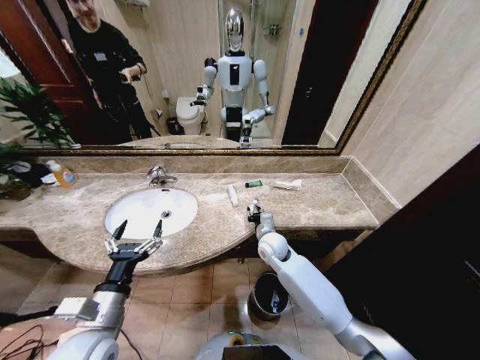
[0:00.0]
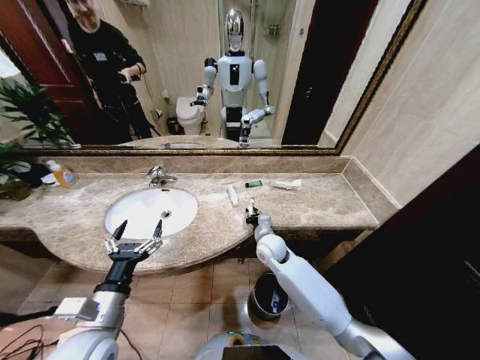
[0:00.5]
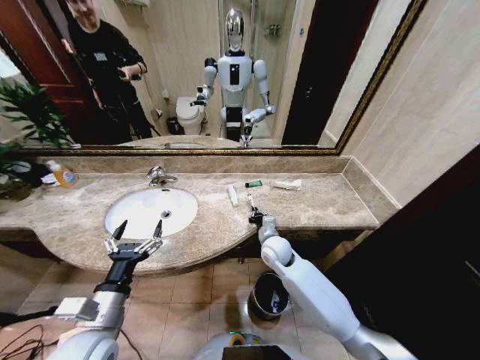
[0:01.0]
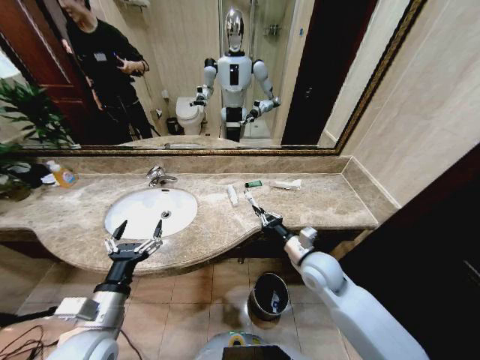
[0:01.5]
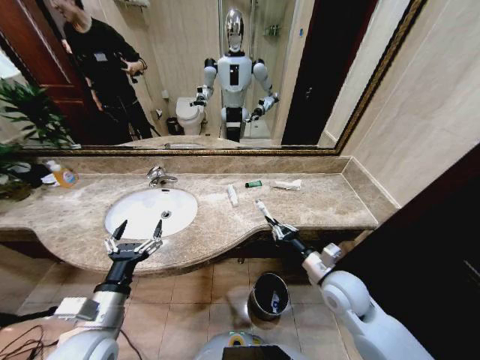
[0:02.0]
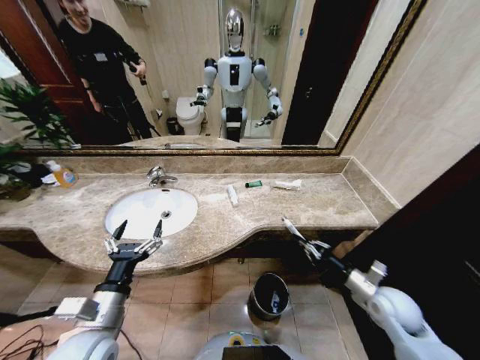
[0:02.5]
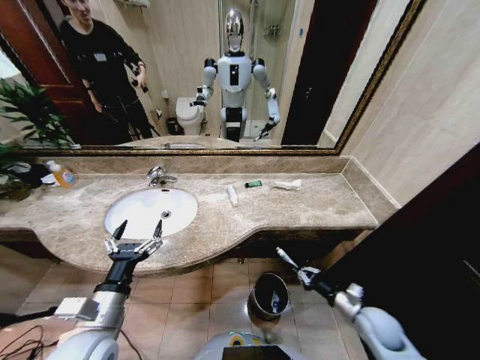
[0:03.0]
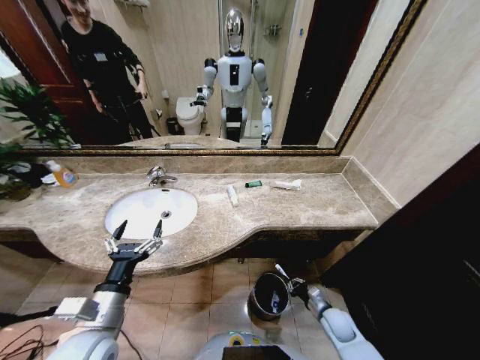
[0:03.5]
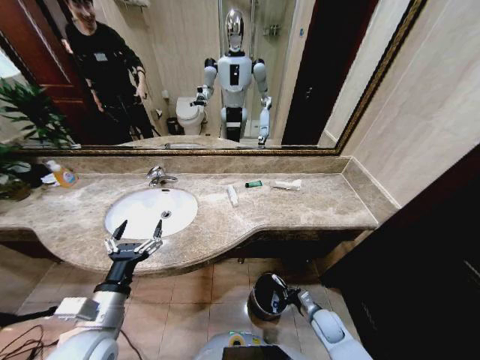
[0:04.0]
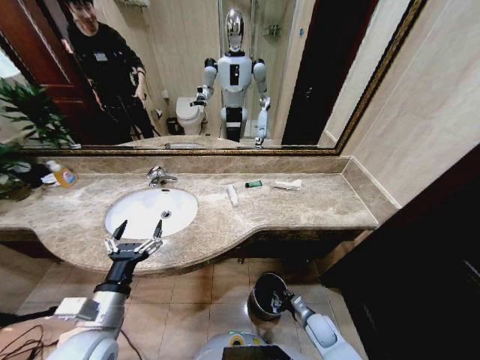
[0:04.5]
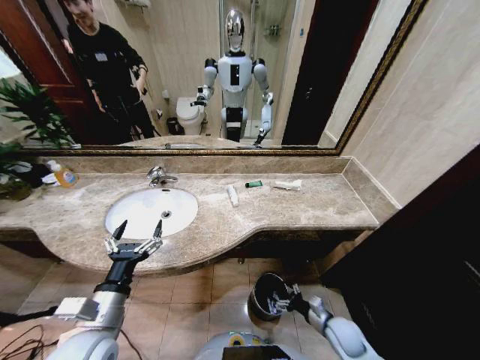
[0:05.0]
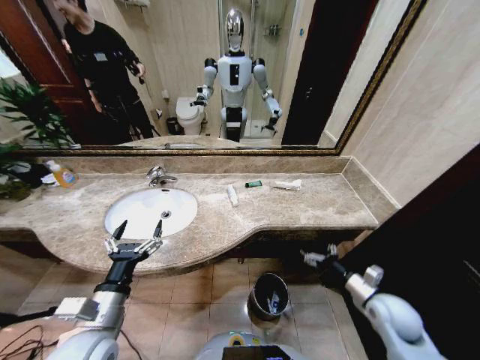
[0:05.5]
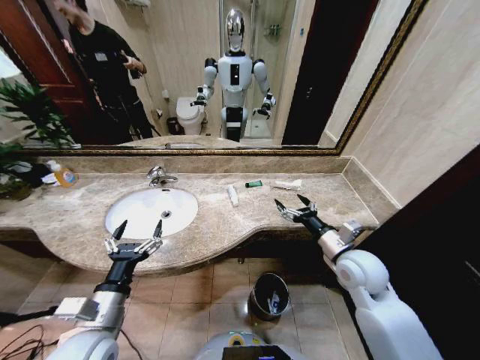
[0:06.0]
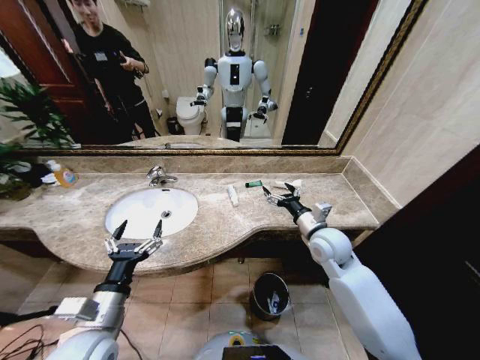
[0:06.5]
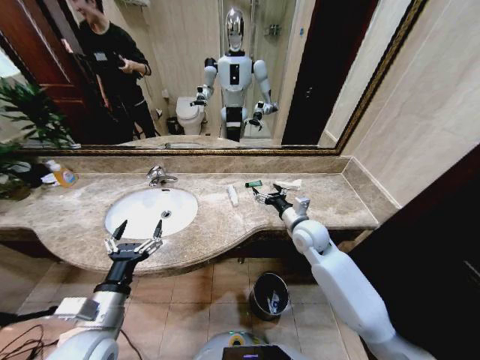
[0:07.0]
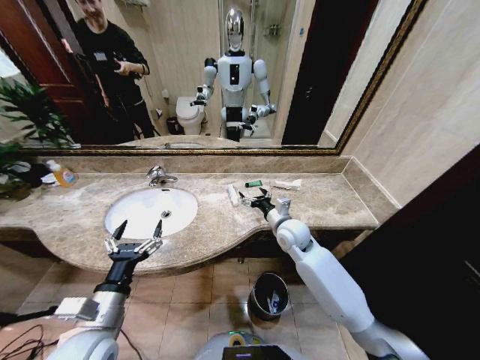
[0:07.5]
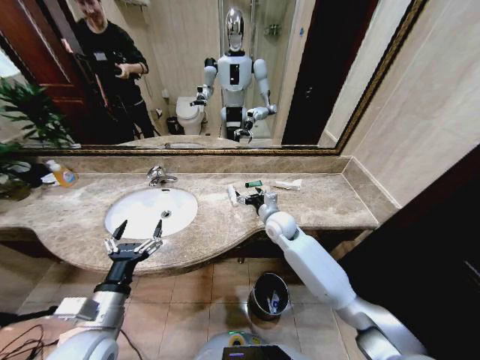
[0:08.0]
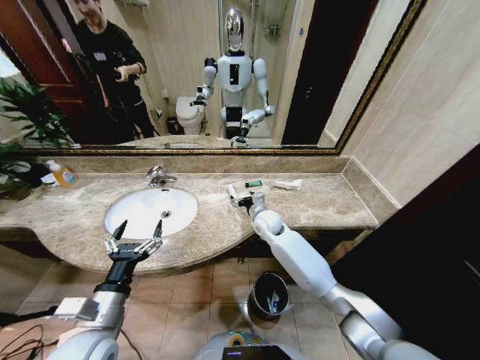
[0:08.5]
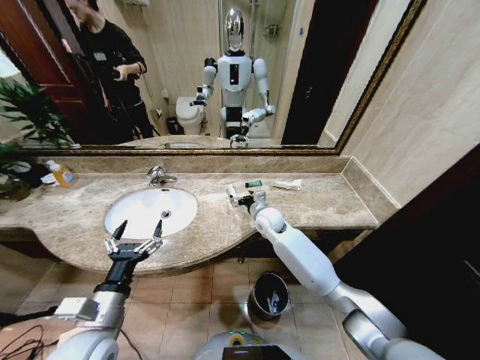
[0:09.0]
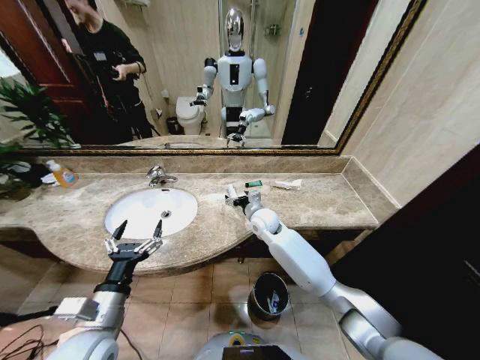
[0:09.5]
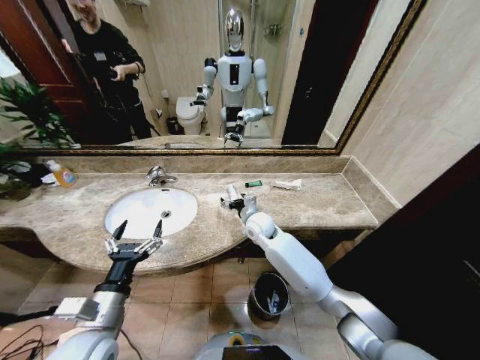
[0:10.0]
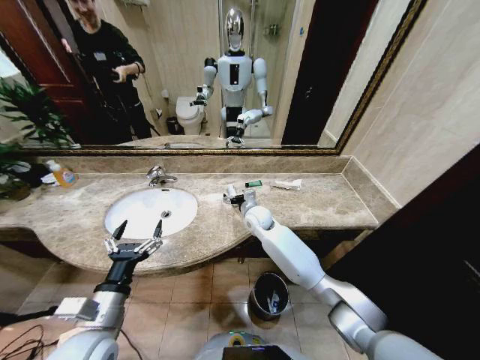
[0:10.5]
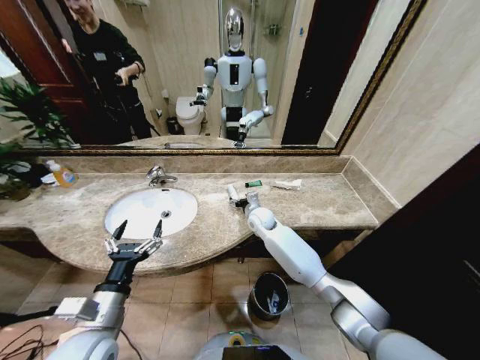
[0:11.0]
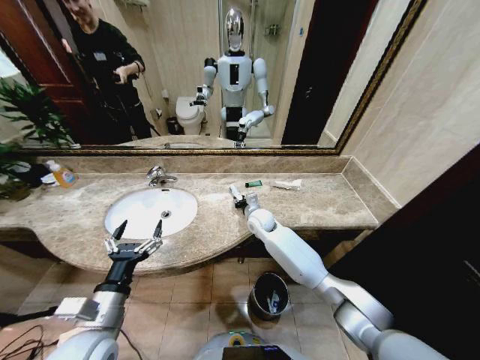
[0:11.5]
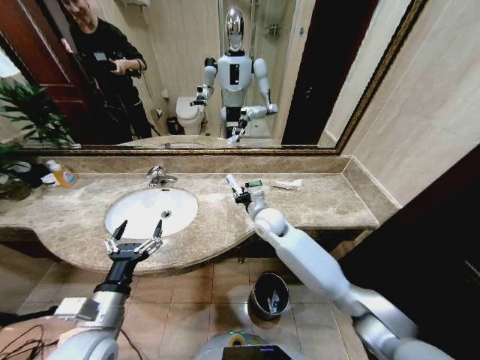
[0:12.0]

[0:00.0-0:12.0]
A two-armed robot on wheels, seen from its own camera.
Task of the whole recording: Pick up the trash from the sink and place it in the trash bin.
0:00.0 to 0:02.0: The right gripper moves backward and to the right, roughly 20 cm, and closes.
0:02.0 to 0:04.0: The right gripper heads downward, covering some 25 cm.
0:04.0 to 0:06.0: The right gripper heads upward, covering approximately 30 cm, and opens up.
0:06.0 to 0:08.0: The right gripper is displaced forward and to the left by about 20 cm.
0:08.0 to 0:10.0: The right gripper shifts about 5 cm to the left.
0:10.0 to 0:12.0: The right gripper closes.

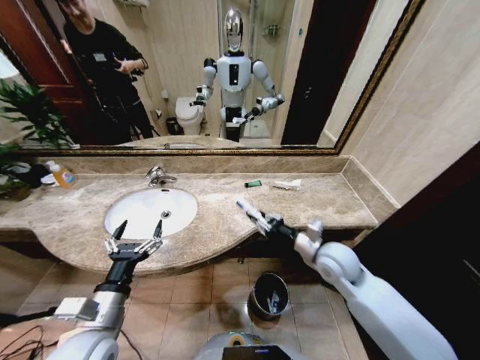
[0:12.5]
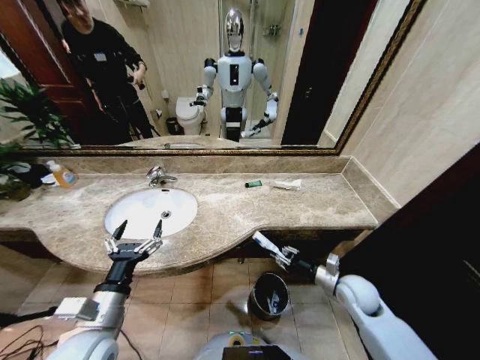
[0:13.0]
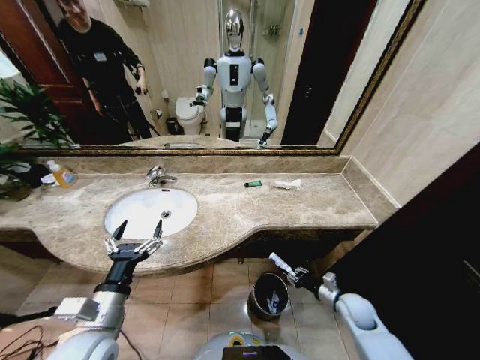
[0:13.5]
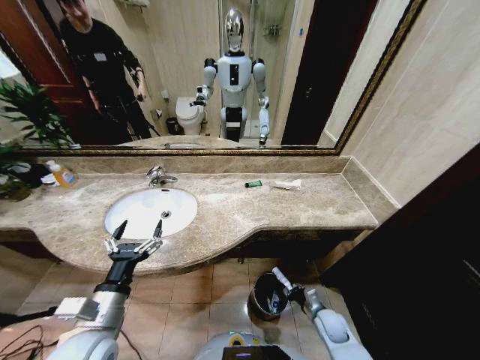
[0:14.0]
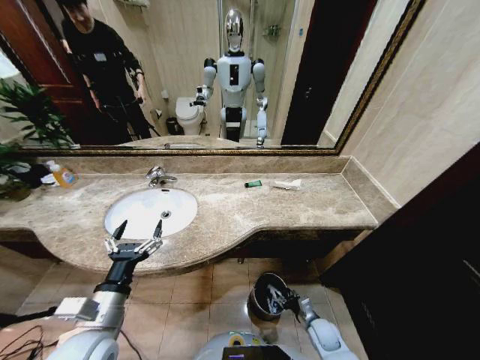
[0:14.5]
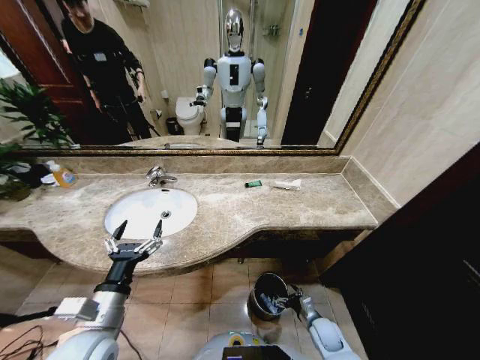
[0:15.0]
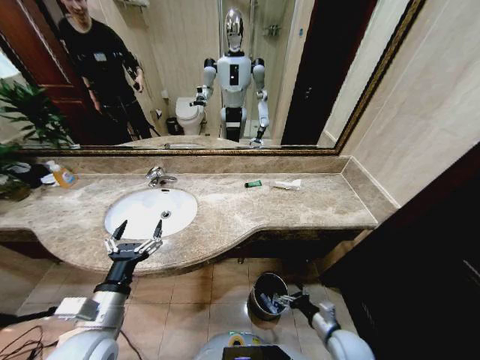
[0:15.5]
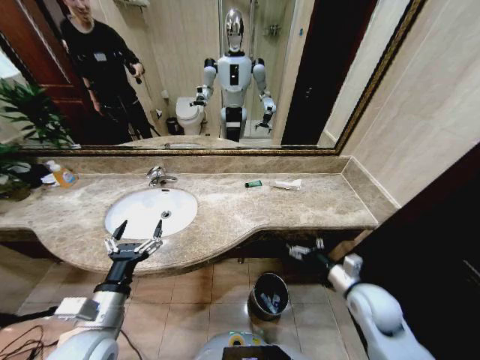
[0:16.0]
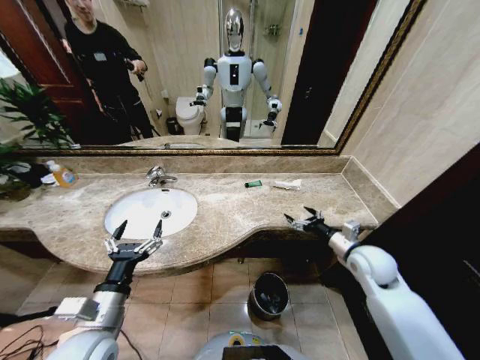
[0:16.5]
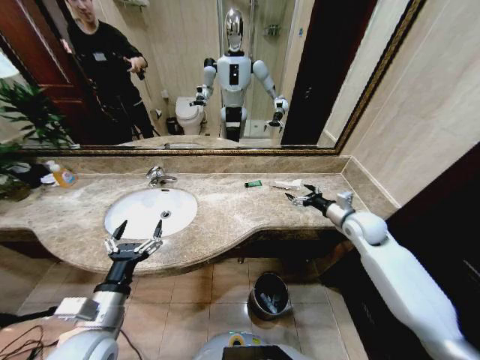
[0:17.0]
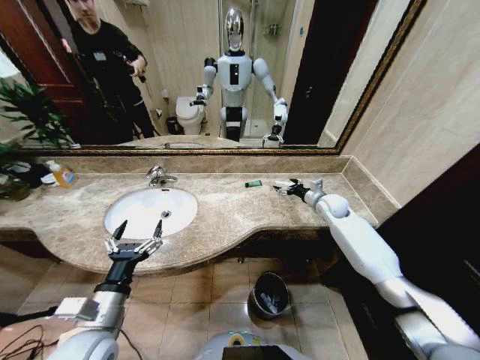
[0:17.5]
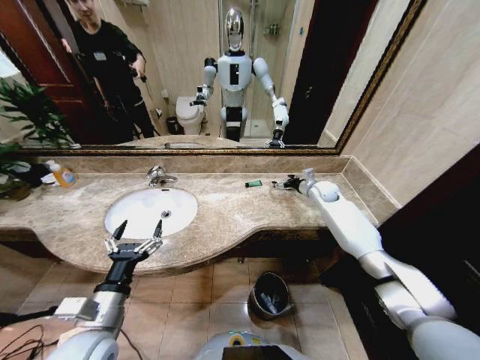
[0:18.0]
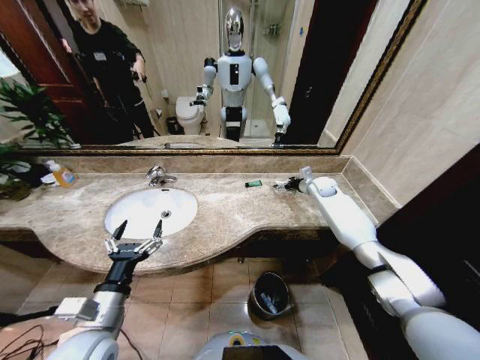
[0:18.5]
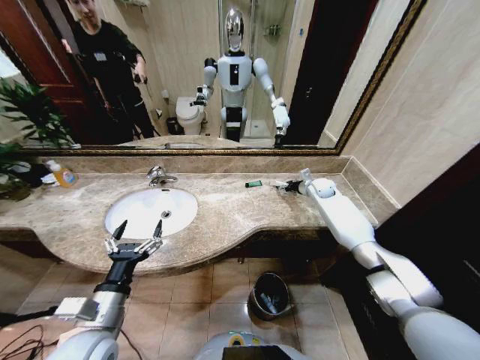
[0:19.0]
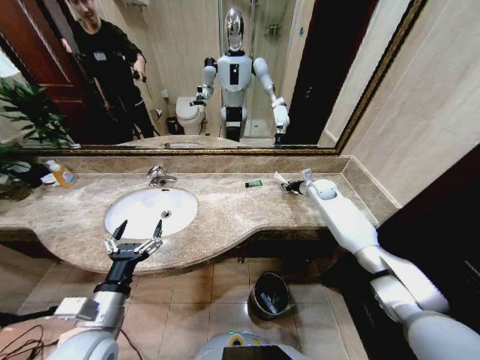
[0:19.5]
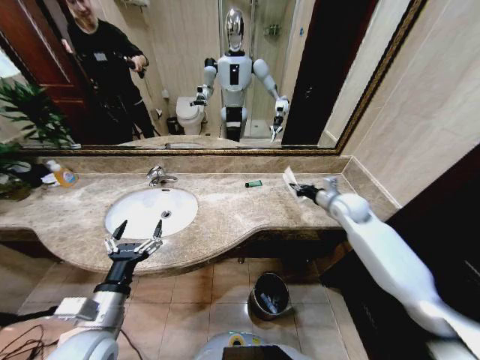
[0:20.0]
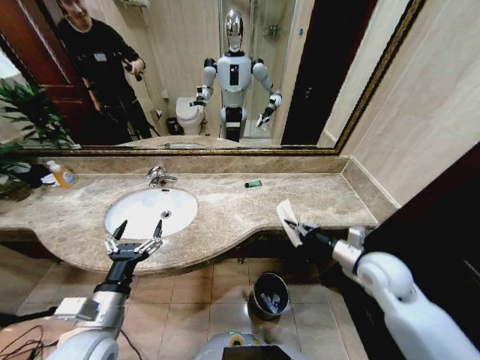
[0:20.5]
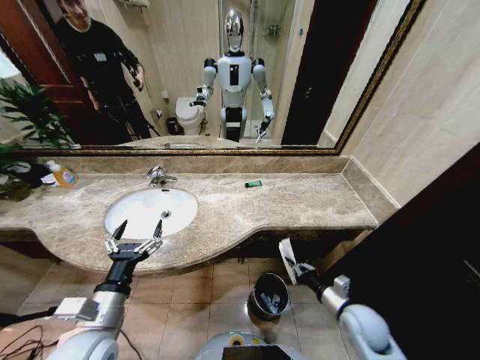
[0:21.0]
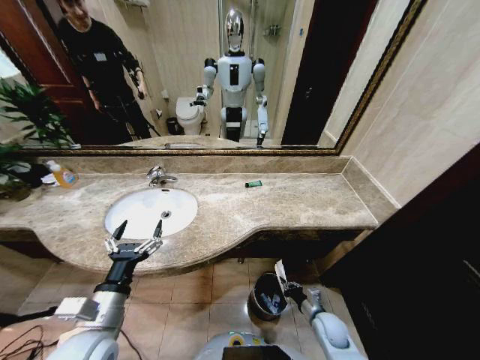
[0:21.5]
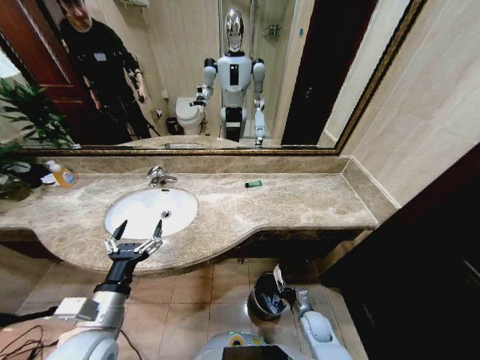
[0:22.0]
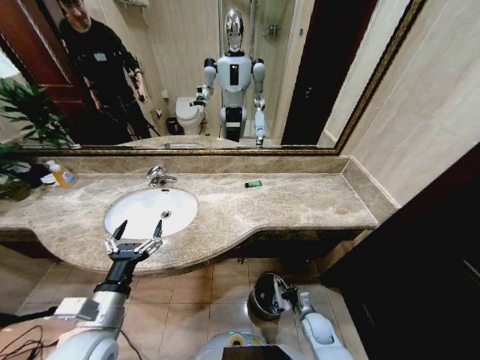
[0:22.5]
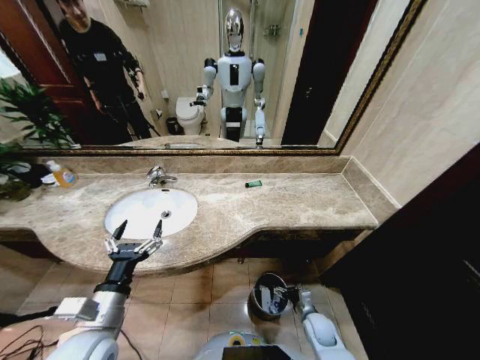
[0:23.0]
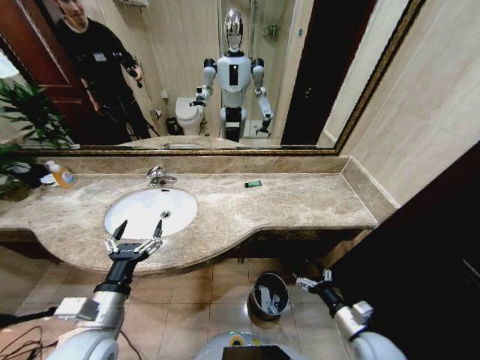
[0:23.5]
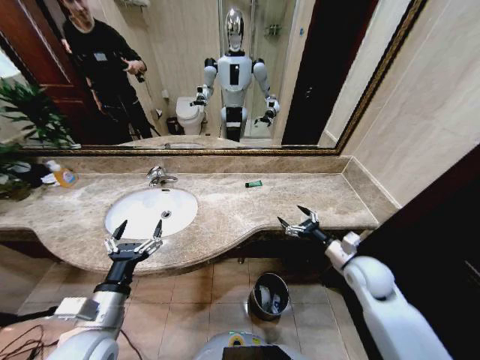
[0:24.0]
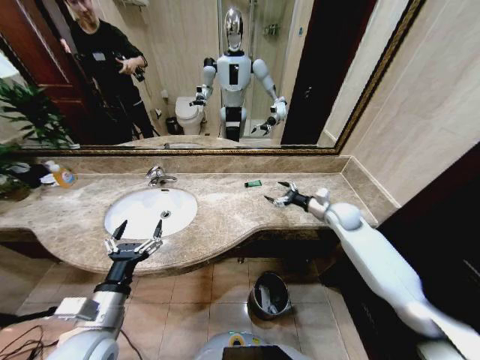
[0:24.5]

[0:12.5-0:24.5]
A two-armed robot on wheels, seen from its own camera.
Task of the whole recording: Pick up the trash from the sink and place it in the trash bin.
0:12.5 to 0:14.5: The right gripper heads downward, covering some 30 cm.
0:14.5 to 0:16.5: The right gripper heads upward, covering about 30 cm, and opens up.
0:16.5 to 0:18.5: The right gripper goes some 30 cm forward.
0:18.5 to 0:20.5: The right gripper is displaced backward by roughly 35 cm, and closes its fingers.
0:20.5 to 0:22.5: The right gripper heads downward, covering roughly 30 cm, and opens.
0:22.5 to 0:24.5: The right gripper travels upward and forward by some 40 cm, and opens its fingers.

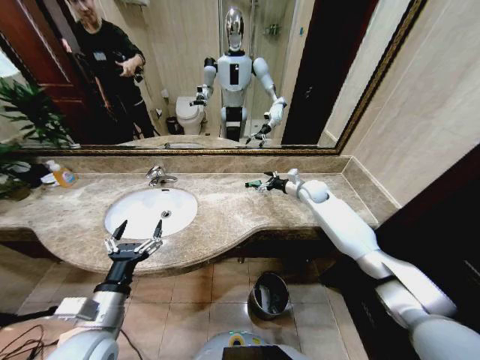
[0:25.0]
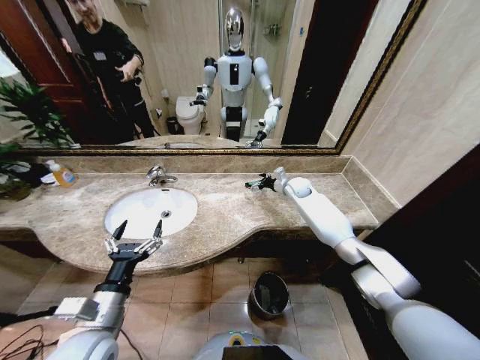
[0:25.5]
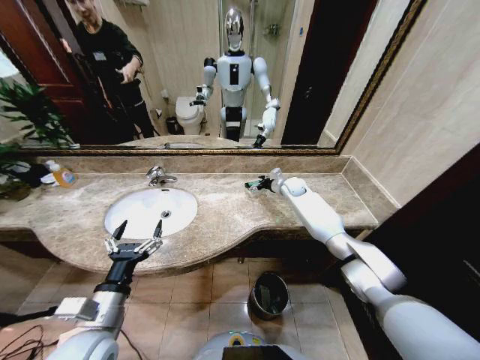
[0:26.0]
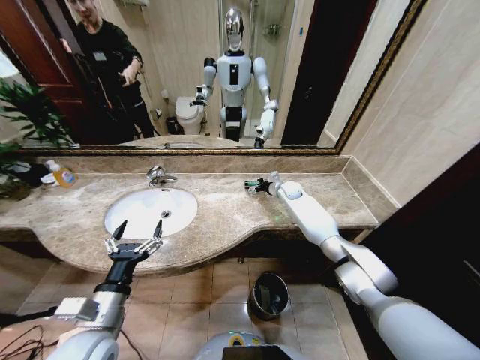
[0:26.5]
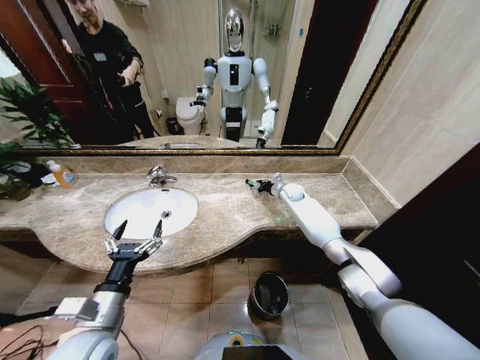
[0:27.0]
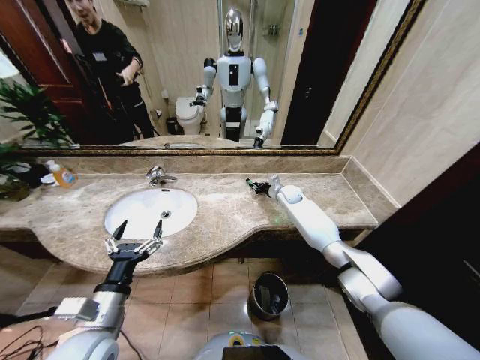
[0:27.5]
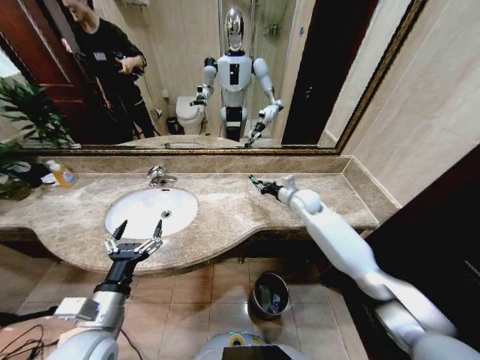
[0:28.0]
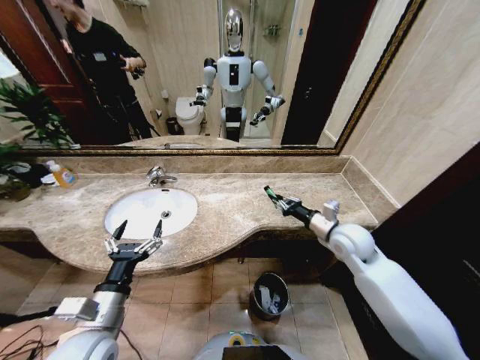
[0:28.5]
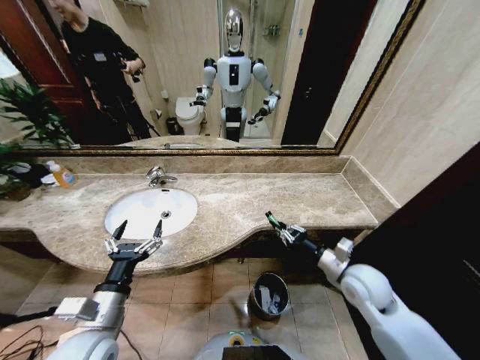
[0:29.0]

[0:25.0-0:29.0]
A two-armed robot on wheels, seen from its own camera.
Task of the whole recording: Pick up the trash from the sink and place it in the trash bin.
0:25.0 to 0:27.0: The right gripper shifts about 10 cm downward and forward, and closes up.
0:27.0 to 0:29.0: The right gripper is displaced backward by roughly 35 cm, and closes its fingers.
